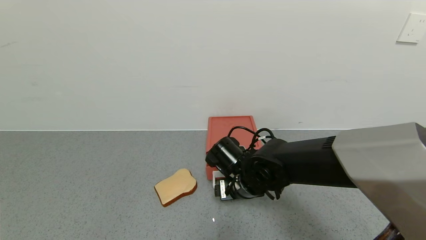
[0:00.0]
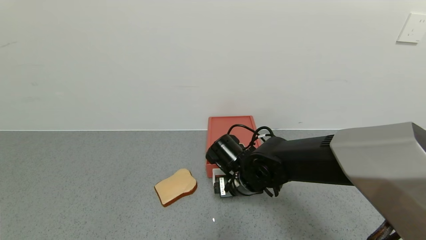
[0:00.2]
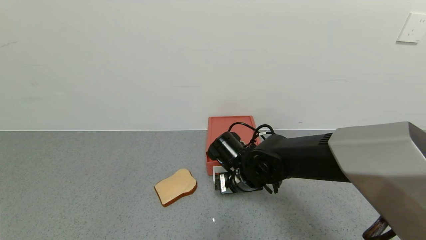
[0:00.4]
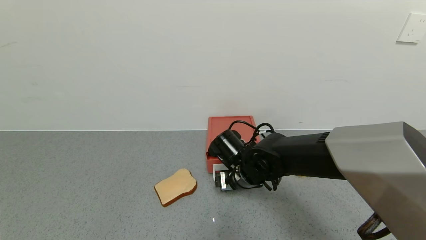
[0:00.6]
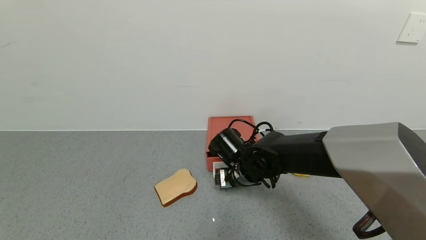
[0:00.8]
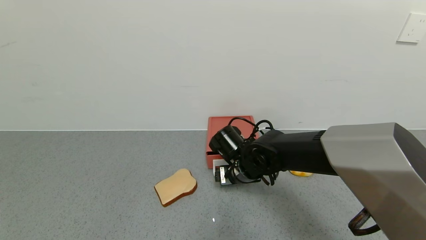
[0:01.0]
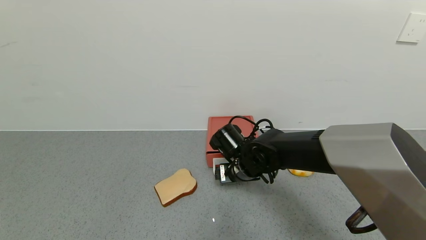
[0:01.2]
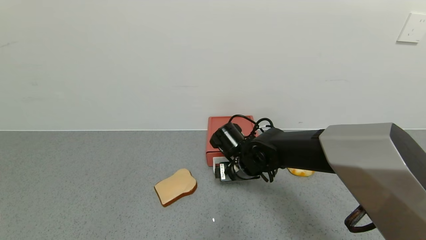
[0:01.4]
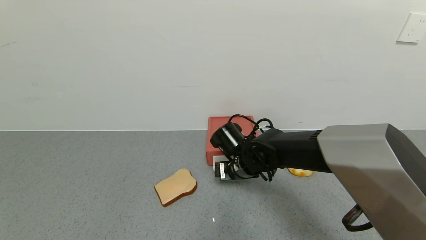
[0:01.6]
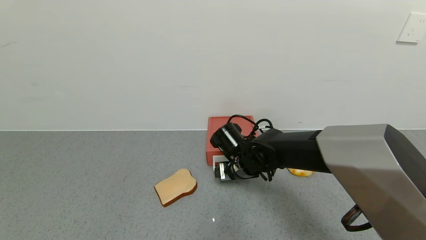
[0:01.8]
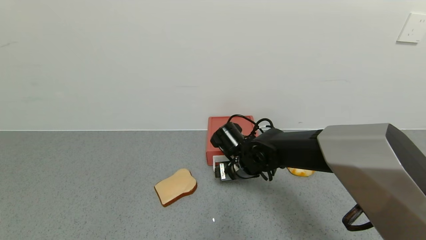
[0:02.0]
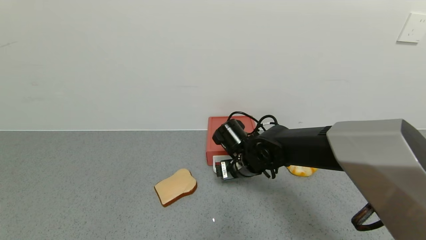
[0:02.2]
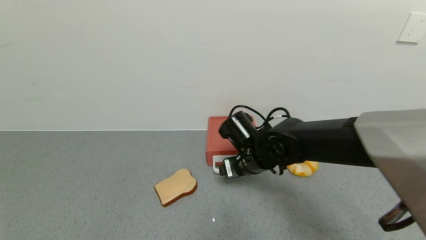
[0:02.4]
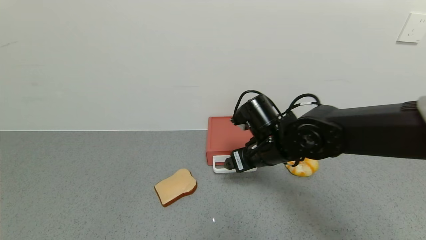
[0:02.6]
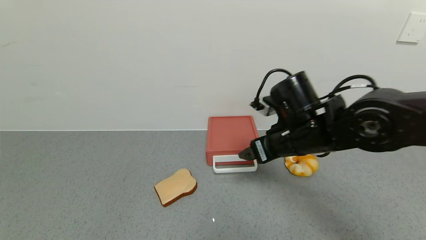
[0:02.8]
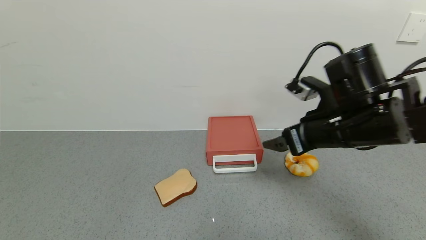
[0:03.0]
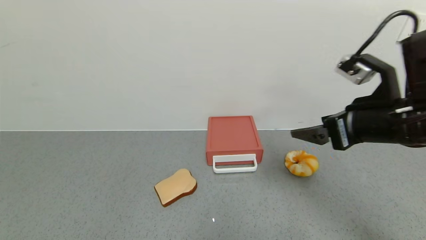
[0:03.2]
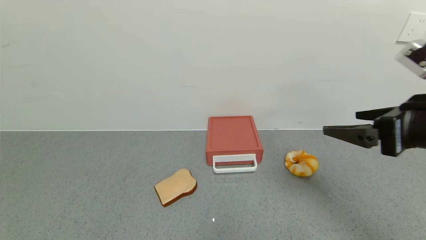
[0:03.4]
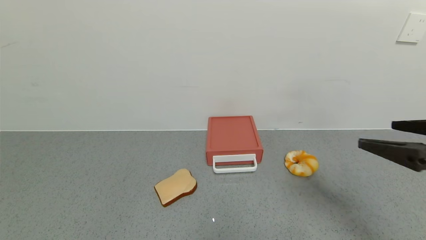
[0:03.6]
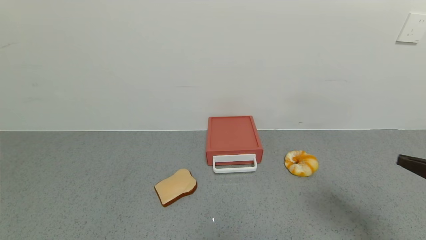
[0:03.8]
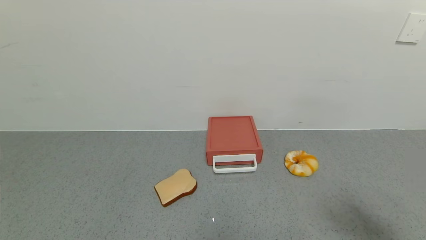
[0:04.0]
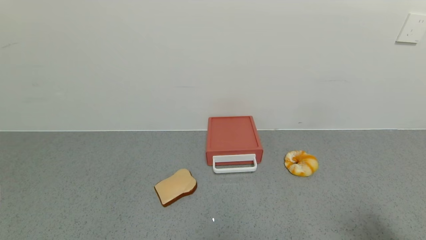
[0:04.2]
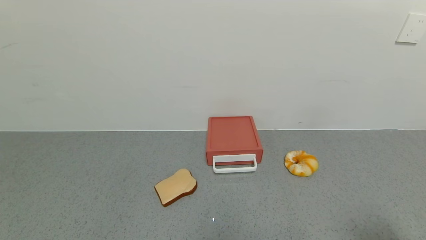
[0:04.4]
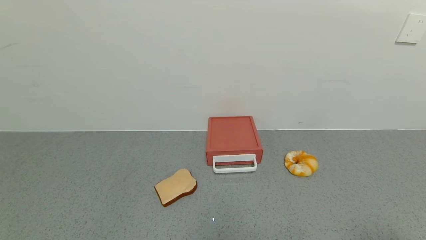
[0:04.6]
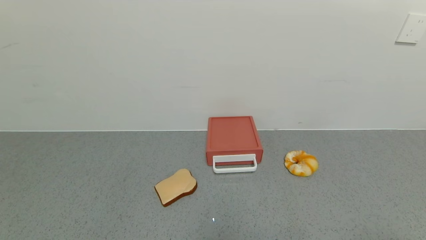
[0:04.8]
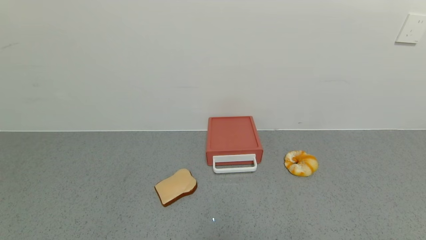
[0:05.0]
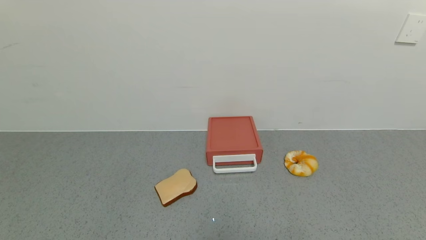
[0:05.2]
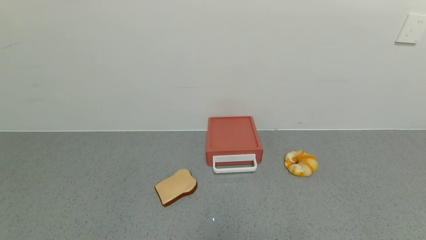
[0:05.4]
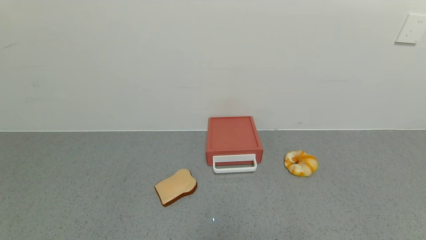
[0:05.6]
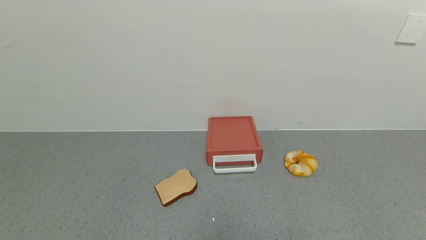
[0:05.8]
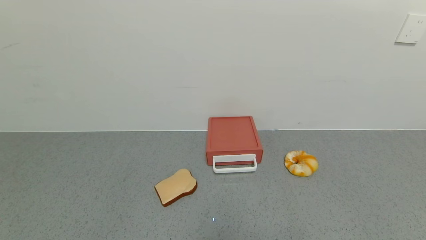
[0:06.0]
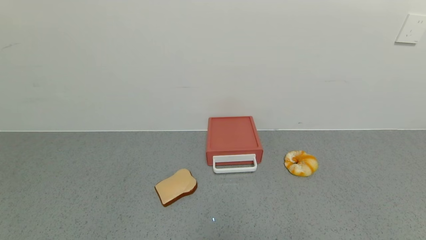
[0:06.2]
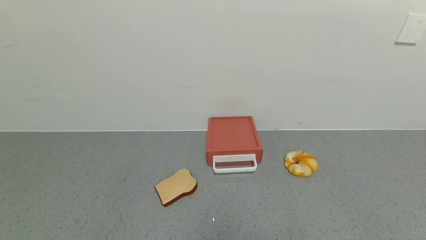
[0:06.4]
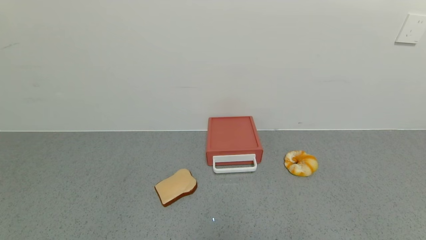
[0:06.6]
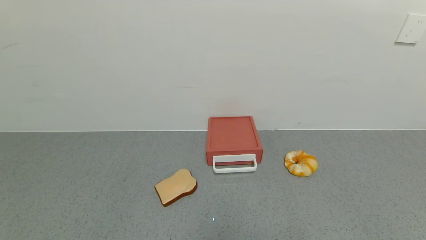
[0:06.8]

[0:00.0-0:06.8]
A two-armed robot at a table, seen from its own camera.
Task of the whole recording: use the gripper to open the drawer and close the red drawer.
Step, 0:00.0 to 0:02.6: Close the red drawer with the right gripper.
0:00.0 to 0:01.4: The grippers move only a little.
0:01.4 to 0:02.8: The right gripper is displaced upward, to the right and backward by some 15 cm.
0:02.8 to 0:04.0: The right gripper moves backward and to the right, approximately 30 cm.
0:04.0 to 0:05.4: The right gripper shifts roughly 15 cm backward and downward.
